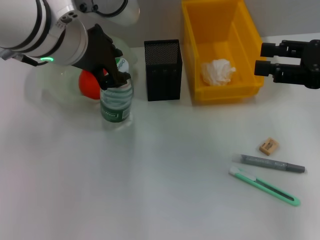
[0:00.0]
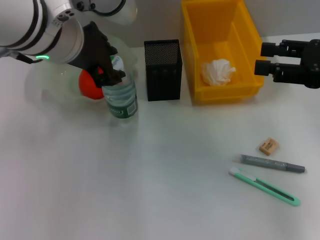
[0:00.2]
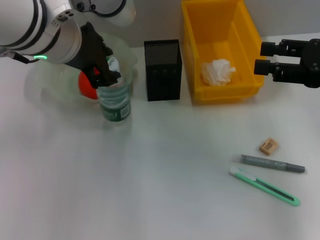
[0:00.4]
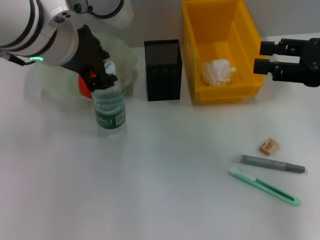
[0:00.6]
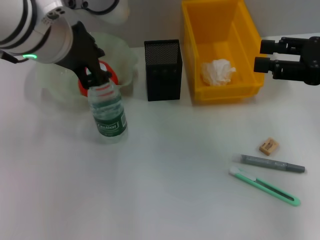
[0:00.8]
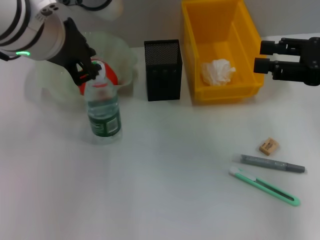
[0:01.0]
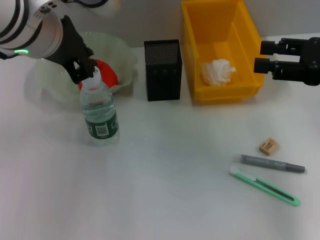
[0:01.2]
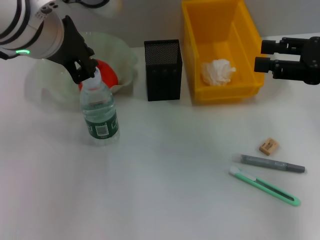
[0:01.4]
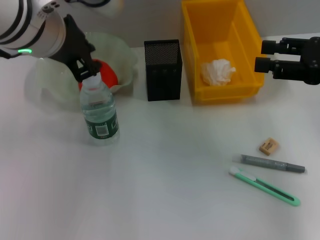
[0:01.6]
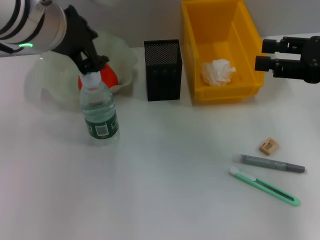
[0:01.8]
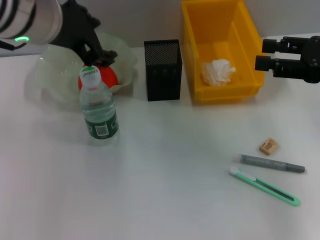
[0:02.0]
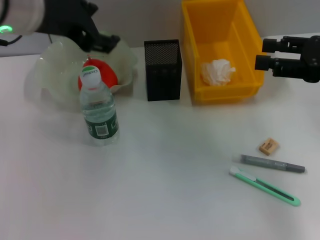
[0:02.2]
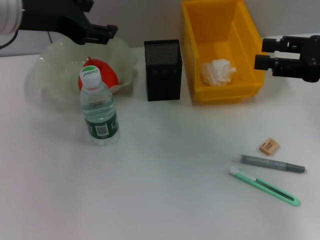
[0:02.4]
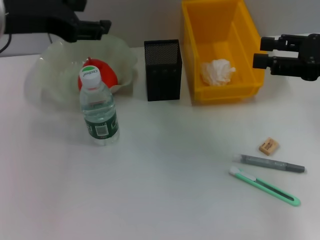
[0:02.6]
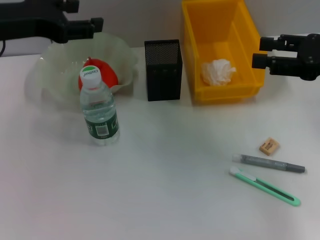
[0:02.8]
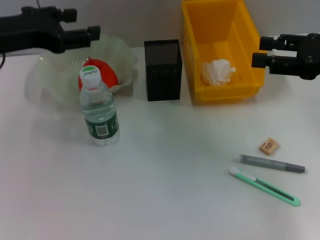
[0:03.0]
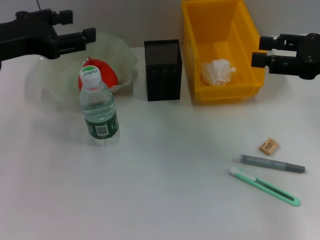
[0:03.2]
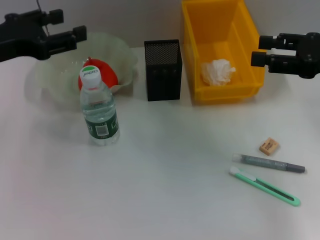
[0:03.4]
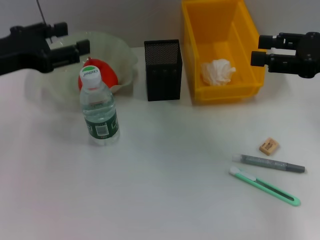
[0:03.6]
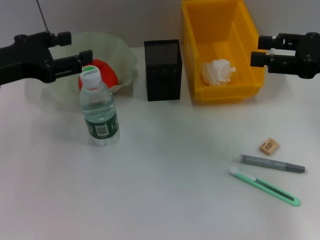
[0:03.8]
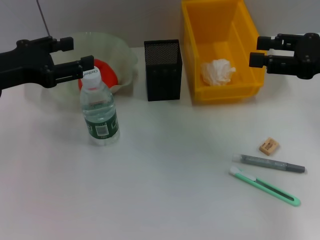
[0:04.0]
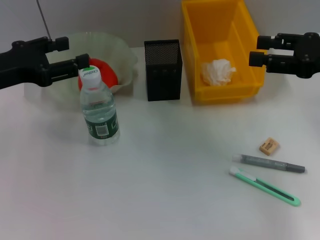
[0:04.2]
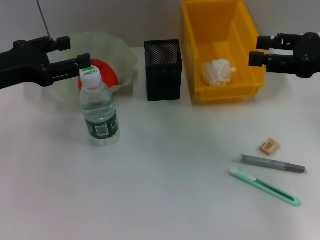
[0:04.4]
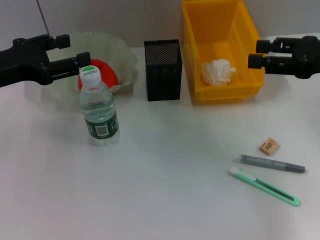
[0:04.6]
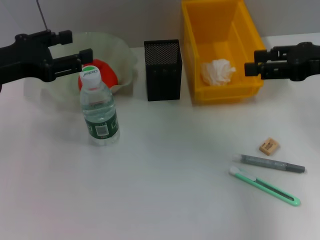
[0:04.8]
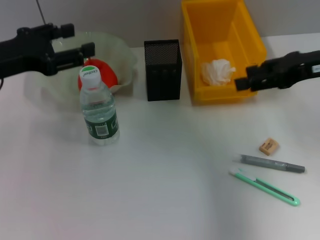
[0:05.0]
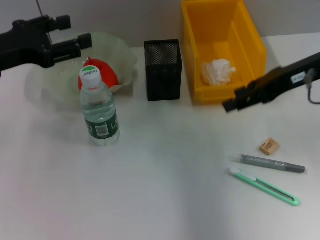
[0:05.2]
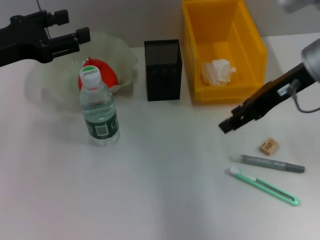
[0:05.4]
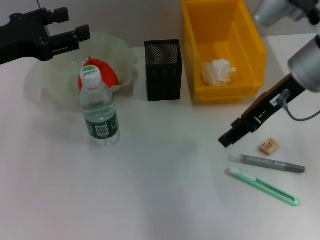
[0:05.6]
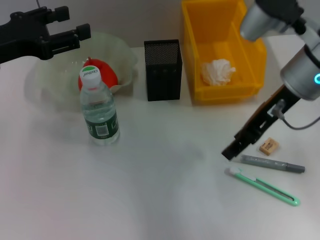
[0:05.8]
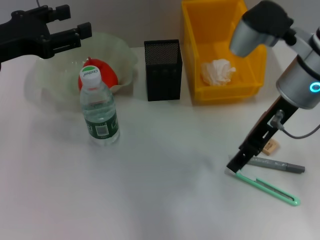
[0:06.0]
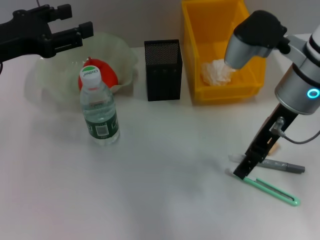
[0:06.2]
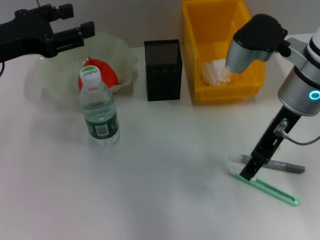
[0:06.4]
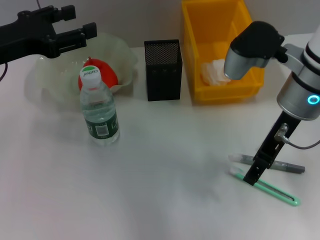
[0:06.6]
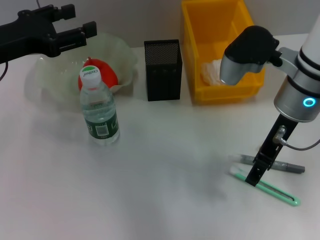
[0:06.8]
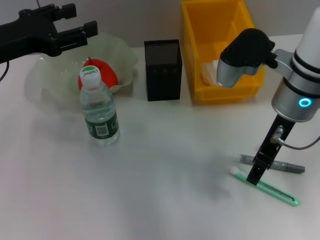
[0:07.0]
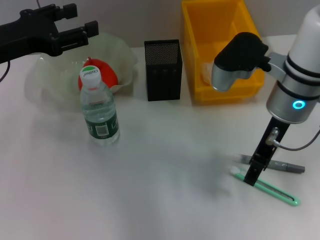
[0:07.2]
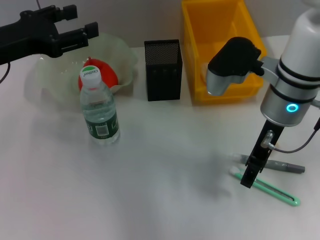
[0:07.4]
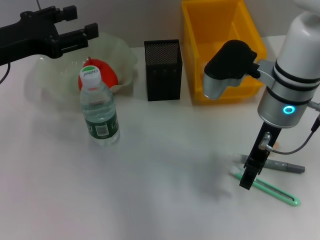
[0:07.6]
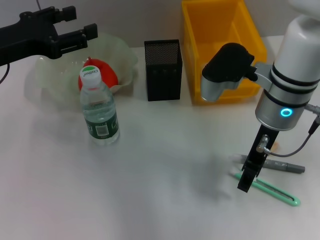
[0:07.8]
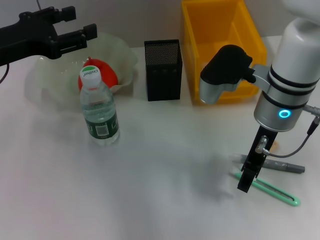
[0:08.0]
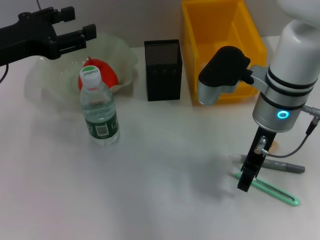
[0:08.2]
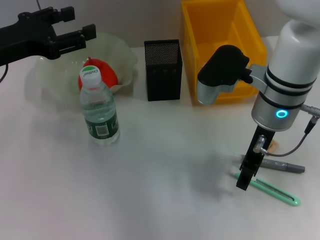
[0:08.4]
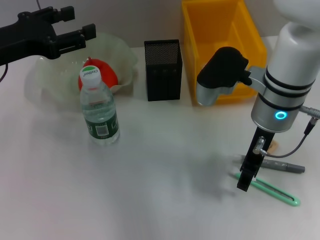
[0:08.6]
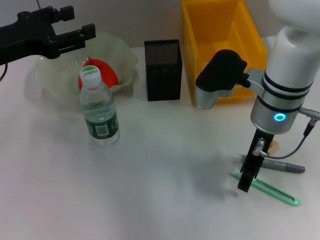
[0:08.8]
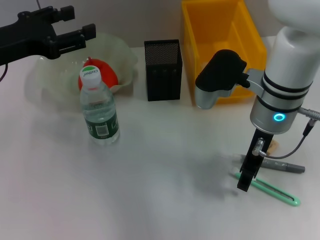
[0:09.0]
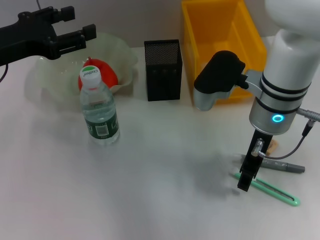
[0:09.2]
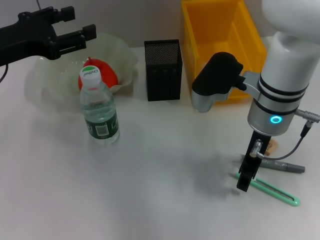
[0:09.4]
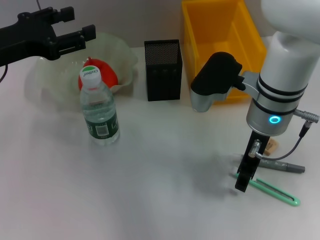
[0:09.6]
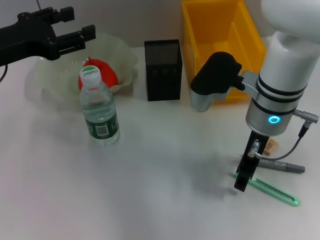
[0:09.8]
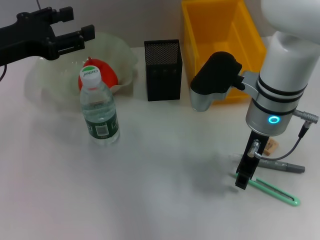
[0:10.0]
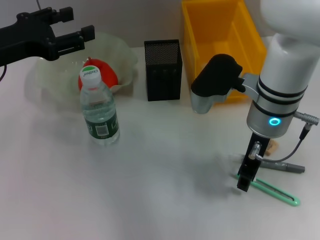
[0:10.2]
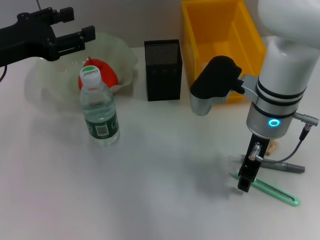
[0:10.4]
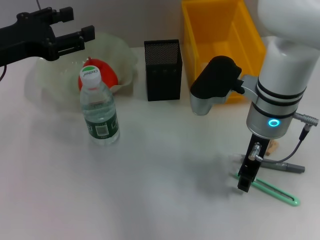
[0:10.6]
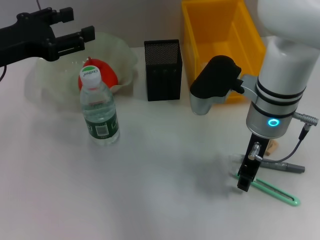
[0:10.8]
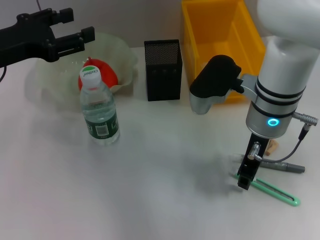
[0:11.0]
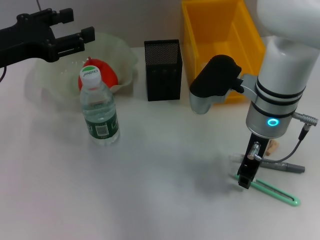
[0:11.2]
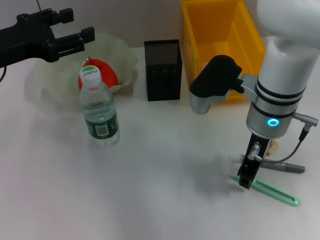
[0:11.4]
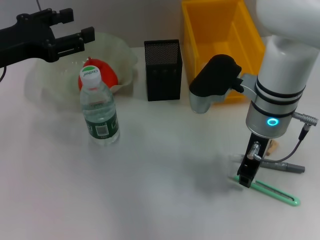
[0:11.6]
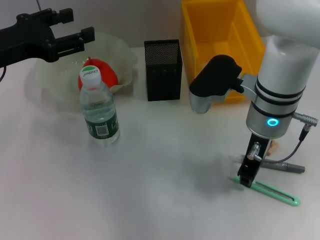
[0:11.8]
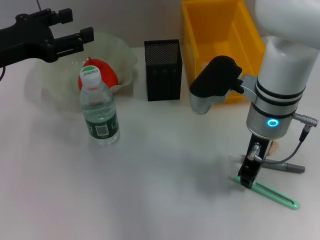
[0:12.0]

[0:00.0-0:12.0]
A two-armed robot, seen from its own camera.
0:00.0 to 0:01.6: The grippers stay close to where they were, moving slightly.
0:01.6 to 0:03.0: The left gripper heads to the left and downward, covering roughly 15 cm, and opens.
0:03.0 to 0:04.4: The left gripper changes place by approximately 5 cm.
0:04.4 to 0:06.0: The right gripper goes some 15 cm to the left.
0:06.0 to 0:07.6: The grippers stay close to where they were, moving slightly.
0:07.6 to 0:09.0: The grippers move only a little.
0:09.0 to 0:10.4: Both grippers stay about where they are.
0:10.4 to 0:12.0: The right gripper closes.

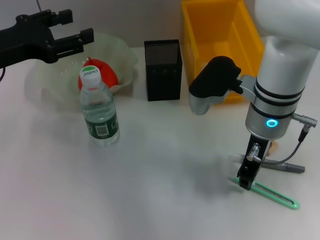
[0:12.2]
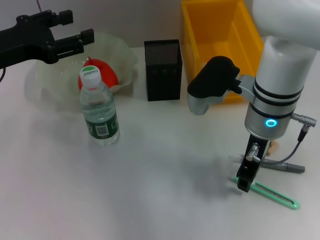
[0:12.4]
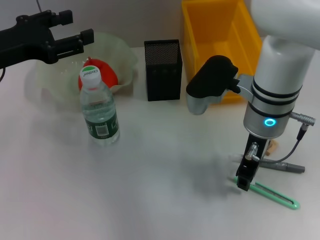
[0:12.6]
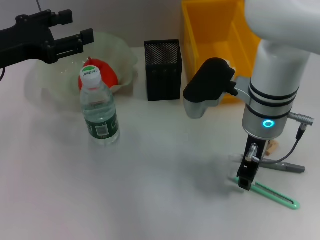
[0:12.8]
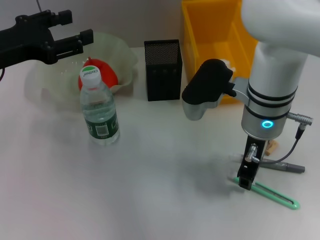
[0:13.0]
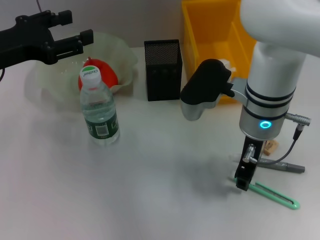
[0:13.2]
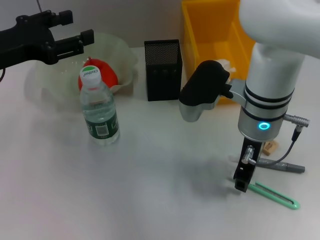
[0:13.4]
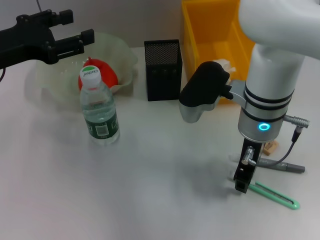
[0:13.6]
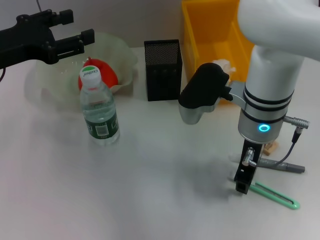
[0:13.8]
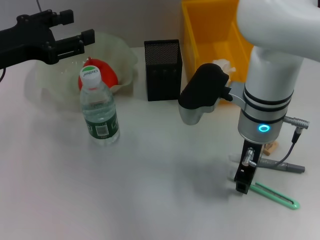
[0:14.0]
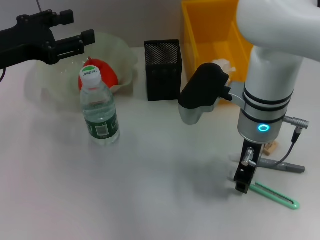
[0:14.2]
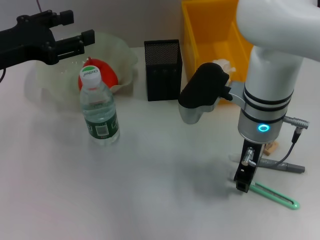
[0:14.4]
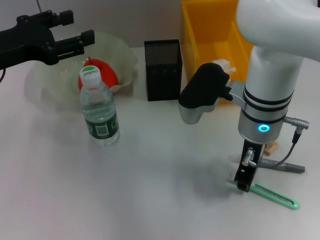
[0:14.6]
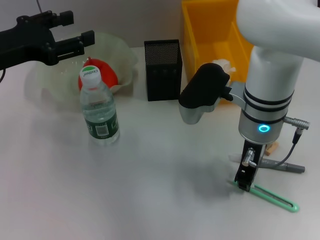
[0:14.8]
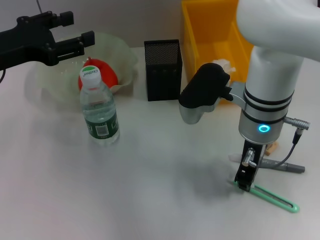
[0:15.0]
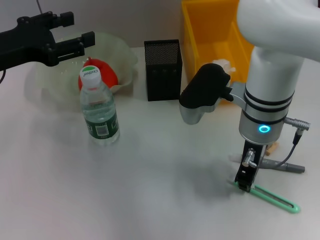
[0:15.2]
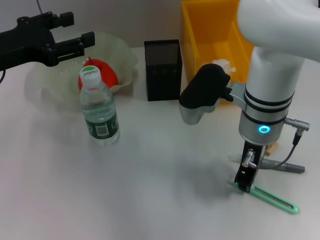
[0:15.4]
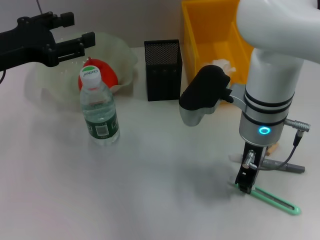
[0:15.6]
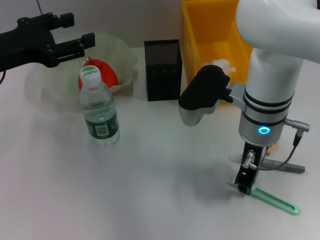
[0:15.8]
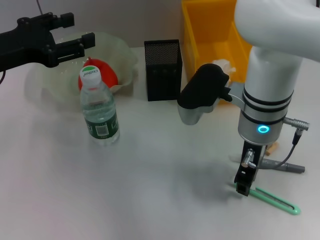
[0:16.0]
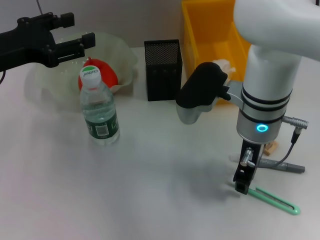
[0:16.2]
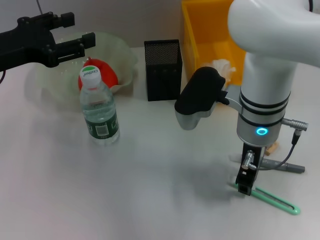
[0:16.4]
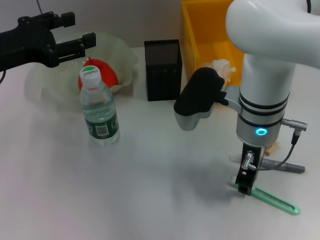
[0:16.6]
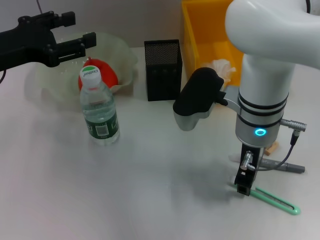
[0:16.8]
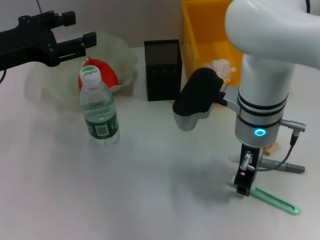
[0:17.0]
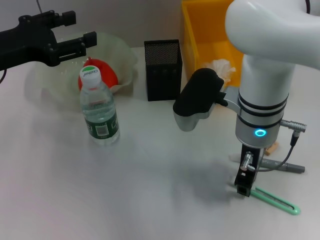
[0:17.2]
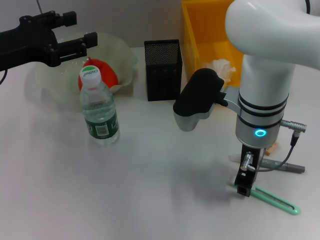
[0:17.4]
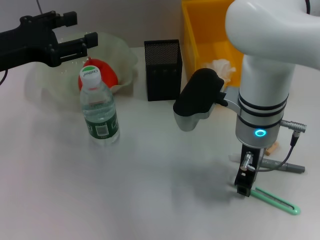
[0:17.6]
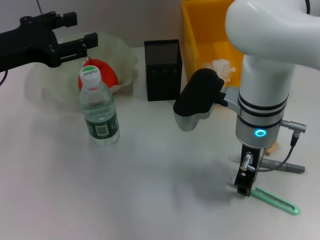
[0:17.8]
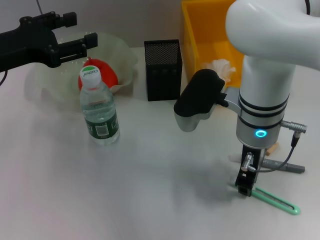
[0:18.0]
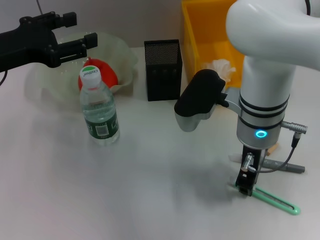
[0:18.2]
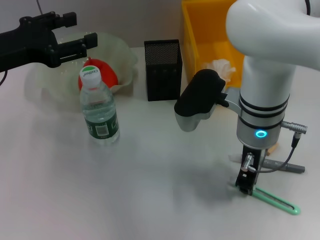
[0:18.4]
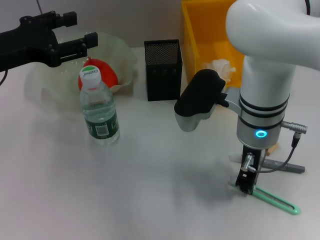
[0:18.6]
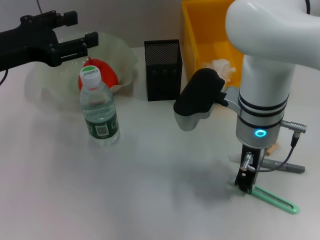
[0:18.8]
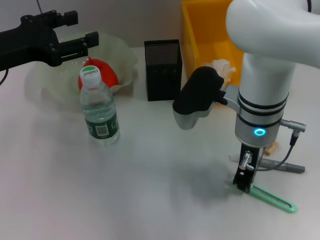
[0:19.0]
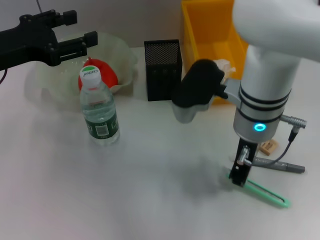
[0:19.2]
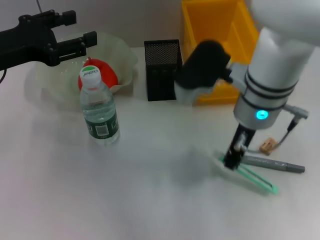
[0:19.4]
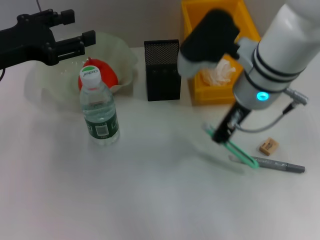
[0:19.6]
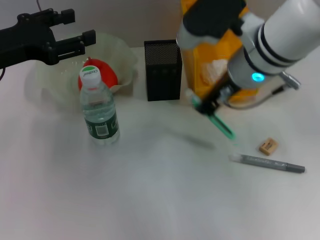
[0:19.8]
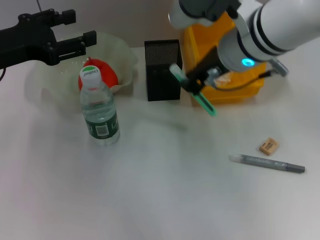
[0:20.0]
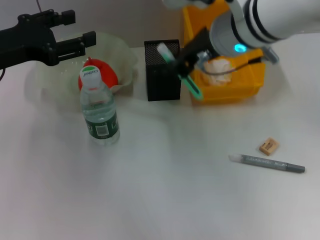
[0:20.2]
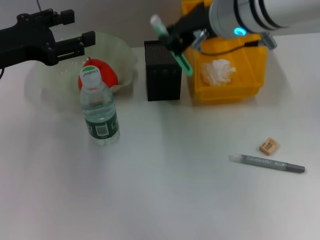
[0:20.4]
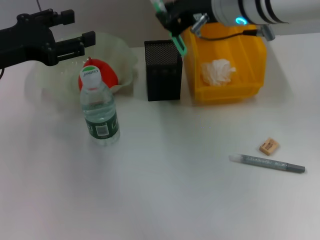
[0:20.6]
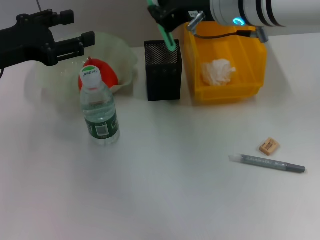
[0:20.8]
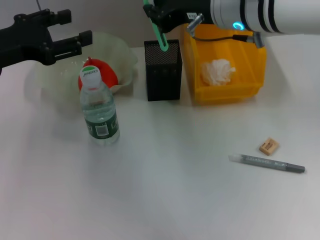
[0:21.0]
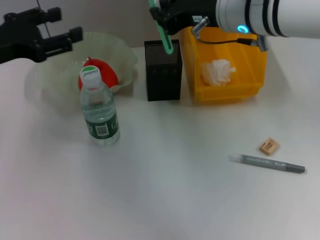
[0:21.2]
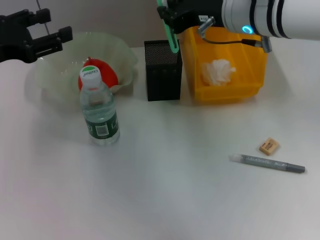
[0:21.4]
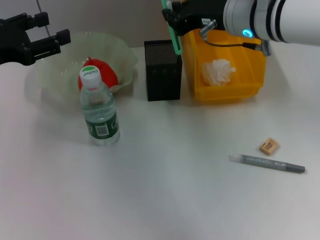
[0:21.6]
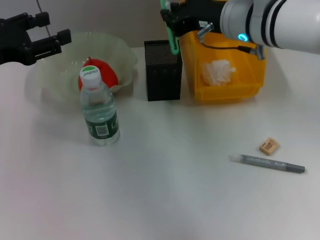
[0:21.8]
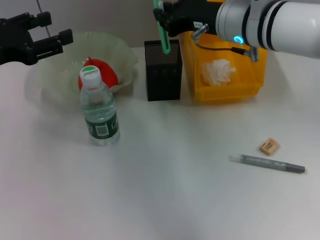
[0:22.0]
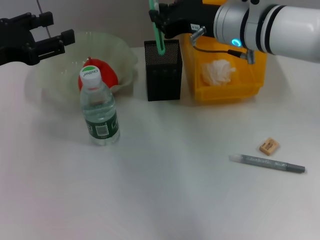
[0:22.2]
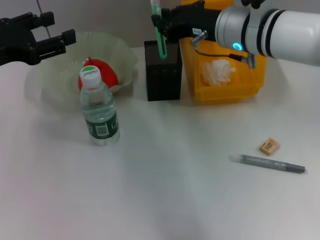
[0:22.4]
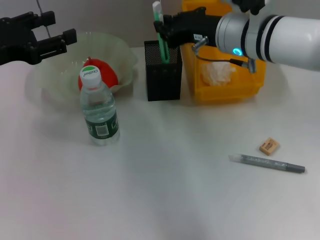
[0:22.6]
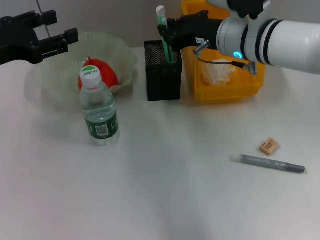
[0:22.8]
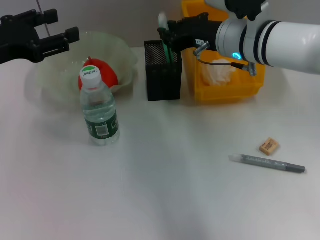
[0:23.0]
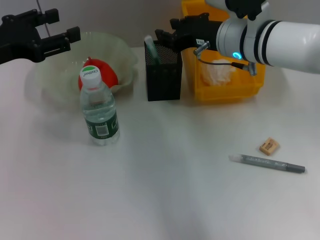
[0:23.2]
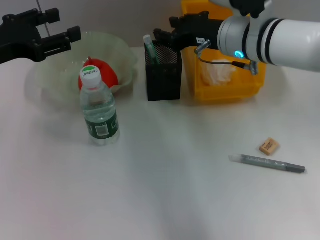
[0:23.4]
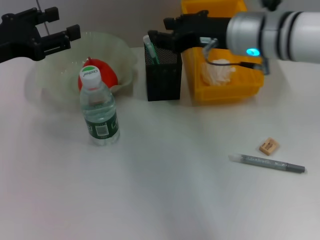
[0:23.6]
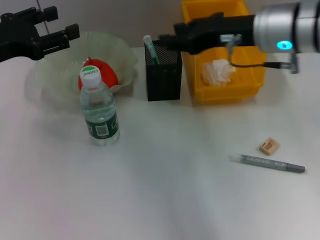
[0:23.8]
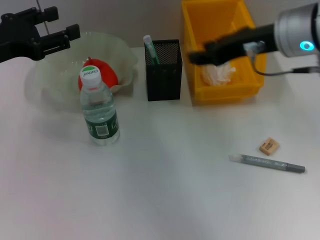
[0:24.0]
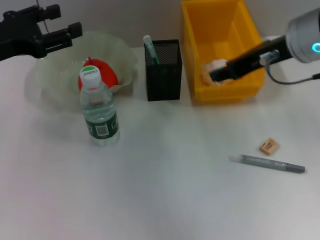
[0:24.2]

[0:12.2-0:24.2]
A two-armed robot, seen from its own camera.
Step, 0:12.2 to 0:18.8: Grab the blue utility knife with the right hand.
Step, 0:19.0 to 0:23.2: Place the blue utility knife into the pen holder with the right hand.
0:12.2 to 0:13.8: The grippers stay close to where they were, moving slightly.
0:13.8 to 0:18.2: The two grippers keep their place.
0:18.2 to 0:19.8: The right gripper shifts some 5 cm upward.
0:21.2 to 0:22.6: The right gripper is displaced downward by roughly 5 cm.
0:22.6 to 0:24.2: The right gripper shifts roughly 10 cm upward, to the right and backward, and opens its fingers.
